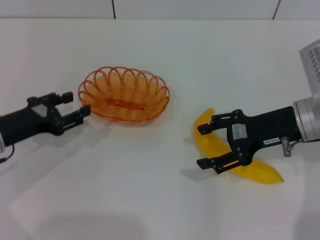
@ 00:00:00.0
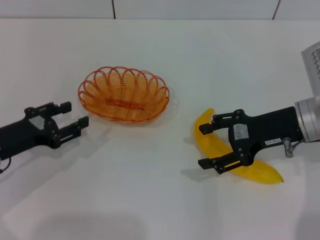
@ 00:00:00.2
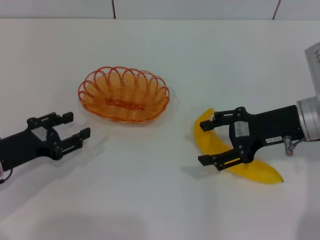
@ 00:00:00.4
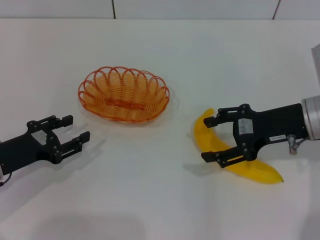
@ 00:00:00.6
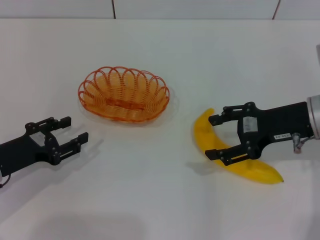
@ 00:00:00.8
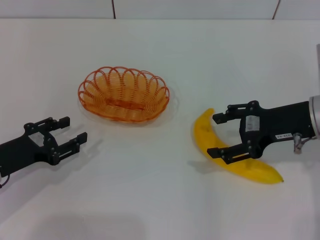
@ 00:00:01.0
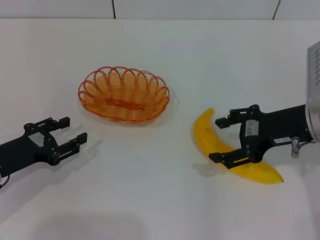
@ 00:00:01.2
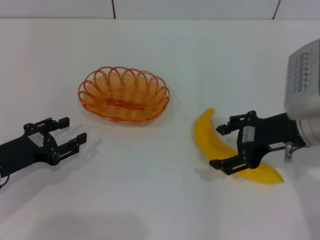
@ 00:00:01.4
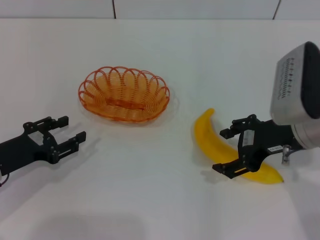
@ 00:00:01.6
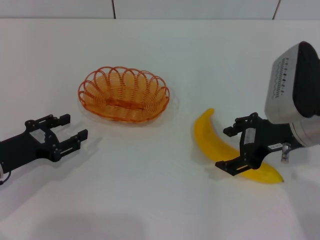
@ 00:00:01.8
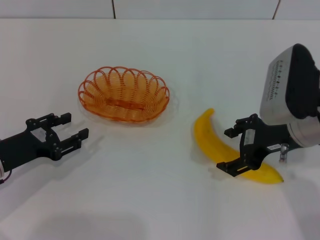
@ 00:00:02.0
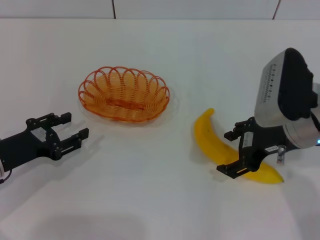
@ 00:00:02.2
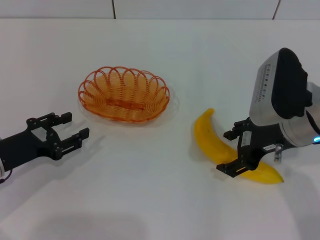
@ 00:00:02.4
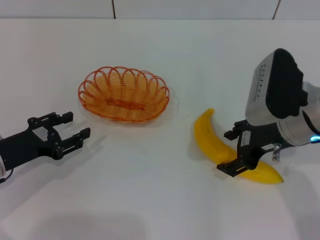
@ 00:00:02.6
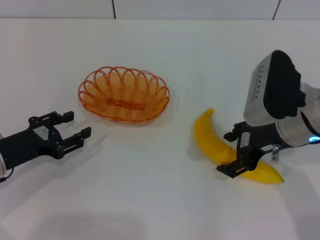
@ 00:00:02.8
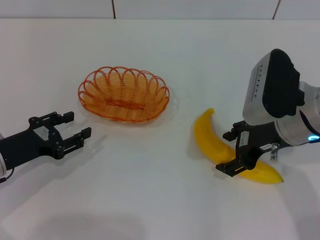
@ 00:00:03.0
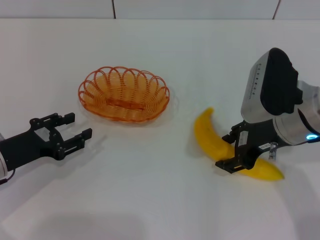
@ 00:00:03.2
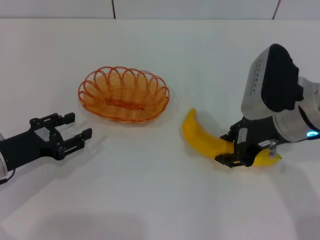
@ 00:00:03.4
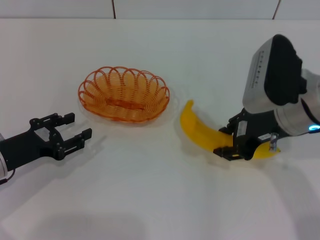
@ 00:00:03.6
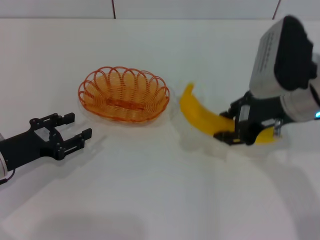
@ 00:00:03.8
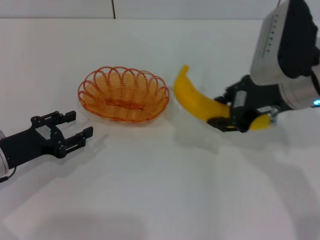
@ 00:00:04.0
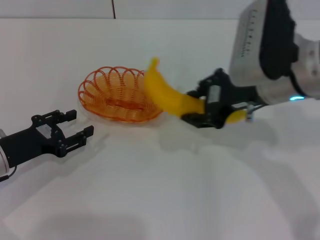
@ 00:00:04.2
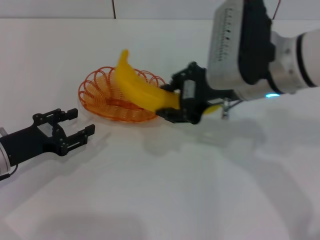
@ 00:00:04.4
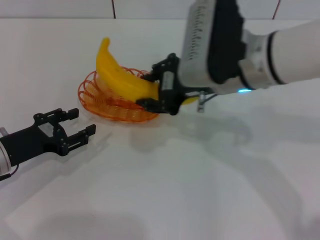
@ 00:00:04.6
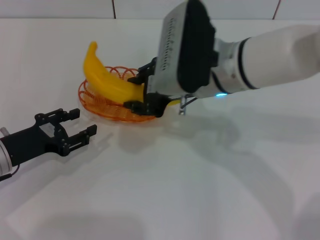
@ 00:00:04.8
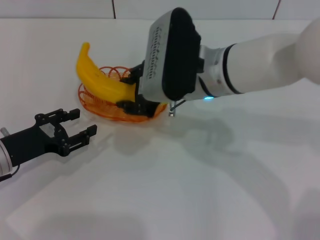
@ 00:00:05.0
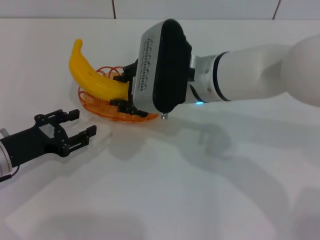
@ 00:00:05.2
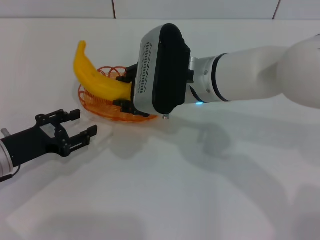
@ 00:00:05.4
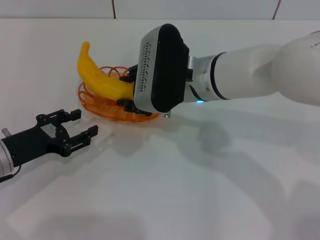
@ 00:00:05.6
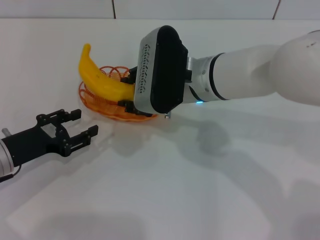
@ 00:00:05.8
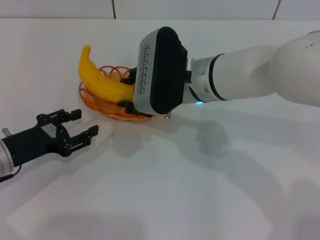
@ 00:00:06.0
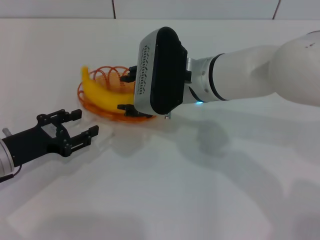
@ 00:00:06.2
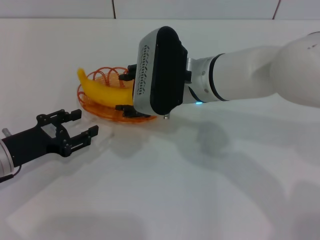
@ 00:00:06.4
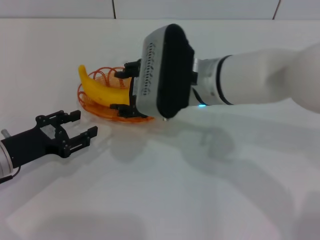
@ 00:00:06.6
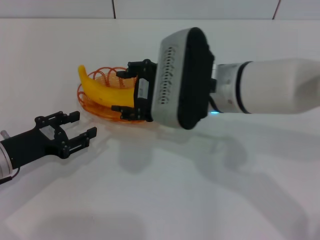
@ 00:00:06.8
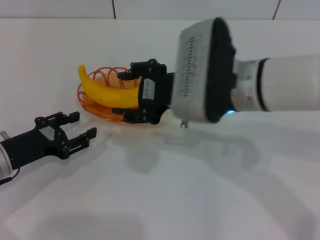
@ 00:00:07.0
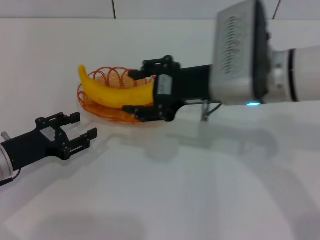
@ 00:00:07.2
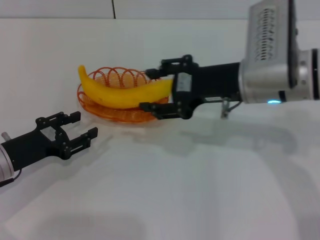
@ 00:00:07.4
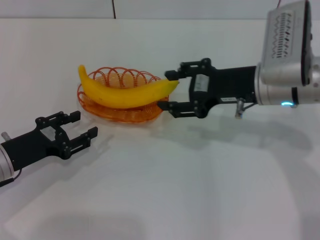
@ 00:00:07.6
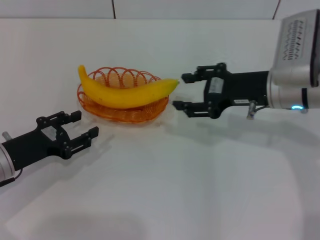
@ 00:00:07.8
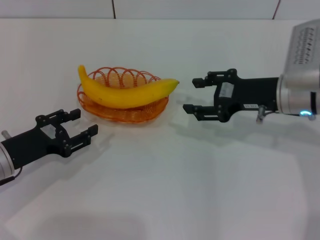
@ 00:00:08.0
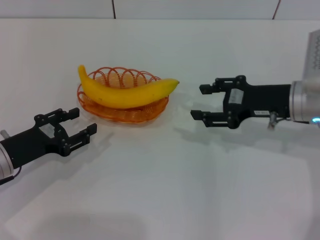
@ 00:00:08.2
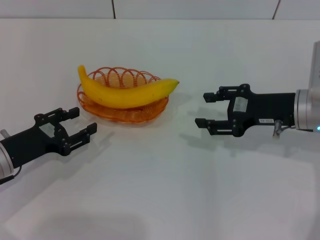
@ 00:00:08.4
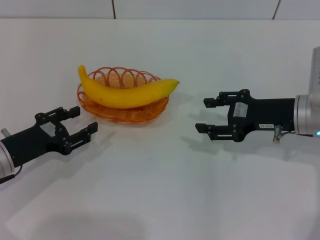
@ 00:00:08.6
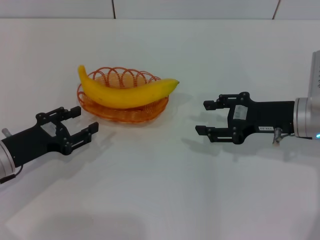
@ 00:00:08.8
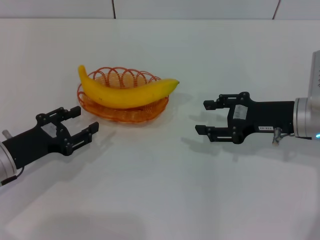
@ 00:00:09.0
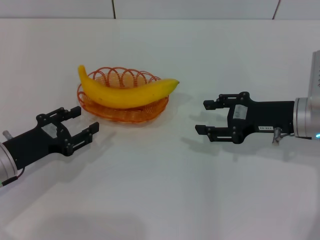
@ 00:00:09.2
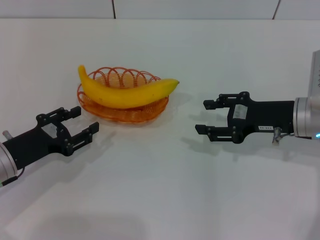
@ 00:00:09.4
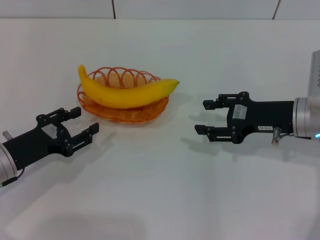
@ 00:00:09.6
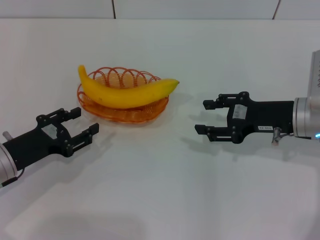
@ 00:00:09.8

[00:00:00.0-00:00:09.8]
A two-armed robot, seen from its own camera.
Step, 00:00:00.0 to 00:00:03.8: Pick up the banana with the right gripper.
Step, 00:00:04.0 to 00:00:07.0: Place the banana into the basket with the right gripper.
00:00:00.0 to 00:00:01.4: The grippers stay close to where they were, moving slightly.
00:00:01.4 to 00:00:02.8: The grippers make only small movements.
00:00:02.8 to 00:00:04.2: The right gripper is displaced upward by roughly 5 cm, and closes up.
00:00:04.2 to 00:00:05.6: The right gripper heads to the left and downward, covering about 10 cm.
00:00:05.6 to 00:00:07.0: The right gripper changes place by approximately 5 cm, and opens its fingers.
00:00:07.0 to 00:00:08.4: The right gripper heads to the right and downward, covering roughly 15 cm.
00:00:08.4 to 00:00:09.8: Neither gripper changes place.
